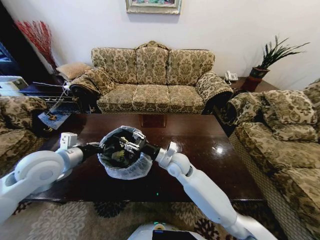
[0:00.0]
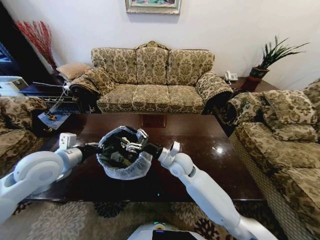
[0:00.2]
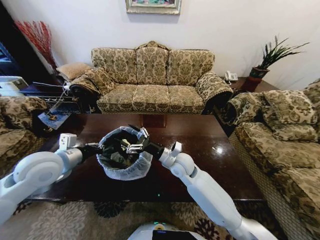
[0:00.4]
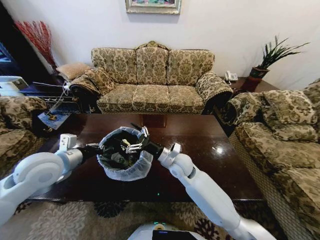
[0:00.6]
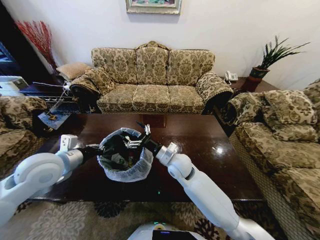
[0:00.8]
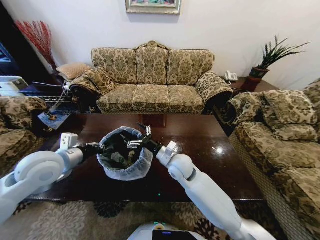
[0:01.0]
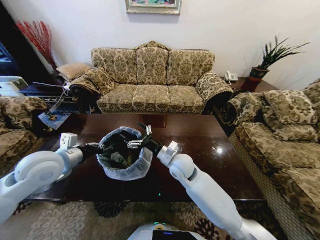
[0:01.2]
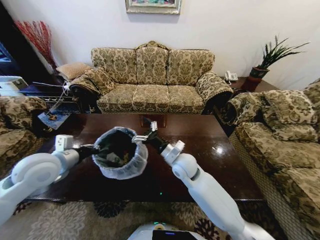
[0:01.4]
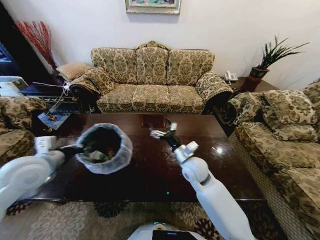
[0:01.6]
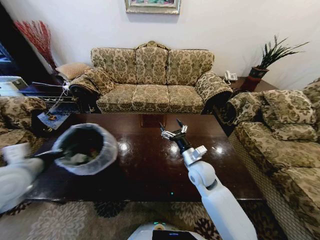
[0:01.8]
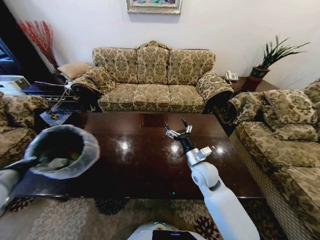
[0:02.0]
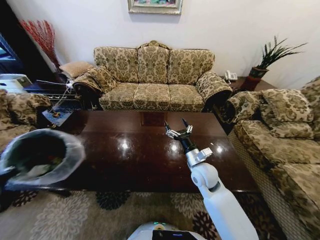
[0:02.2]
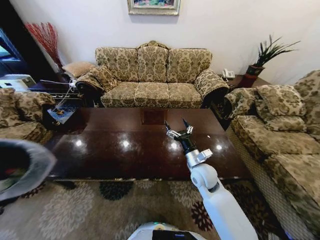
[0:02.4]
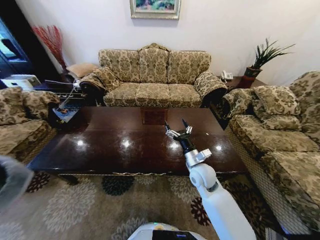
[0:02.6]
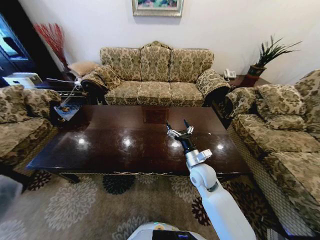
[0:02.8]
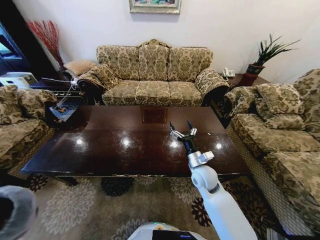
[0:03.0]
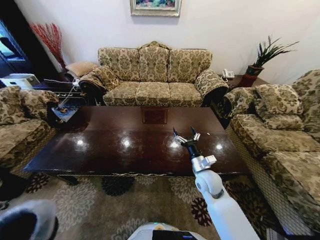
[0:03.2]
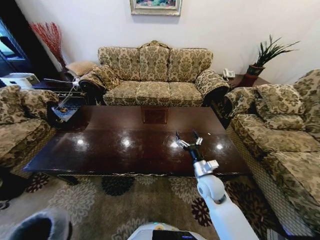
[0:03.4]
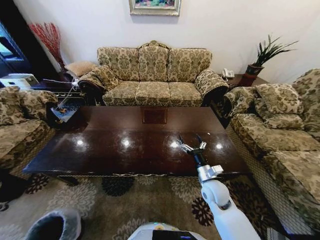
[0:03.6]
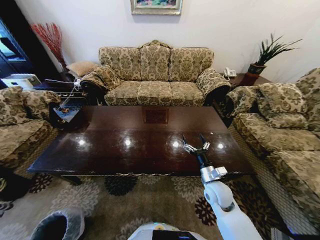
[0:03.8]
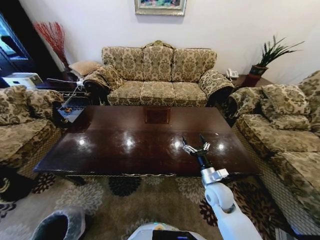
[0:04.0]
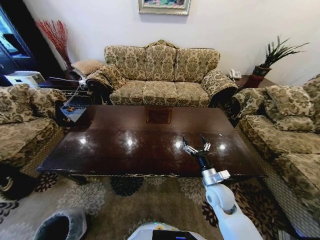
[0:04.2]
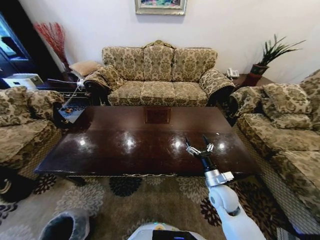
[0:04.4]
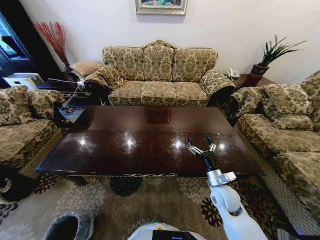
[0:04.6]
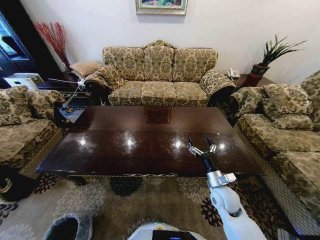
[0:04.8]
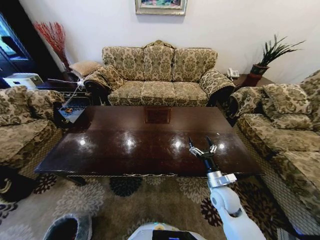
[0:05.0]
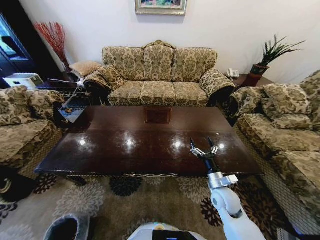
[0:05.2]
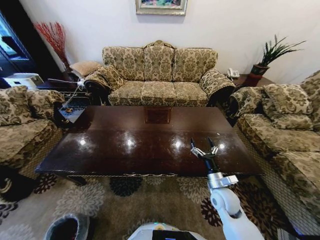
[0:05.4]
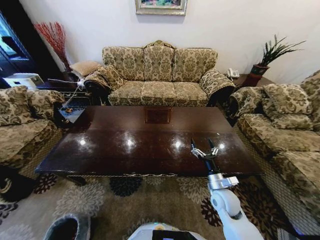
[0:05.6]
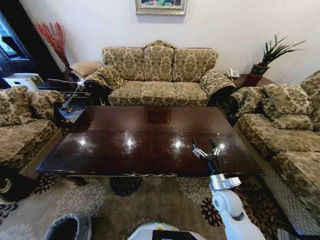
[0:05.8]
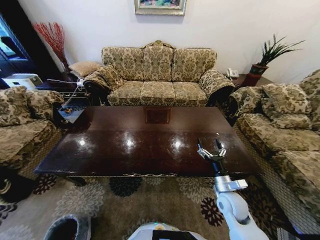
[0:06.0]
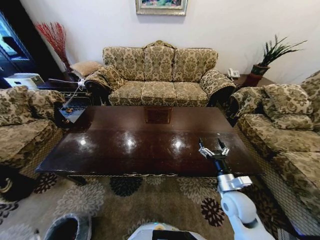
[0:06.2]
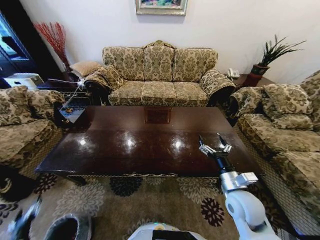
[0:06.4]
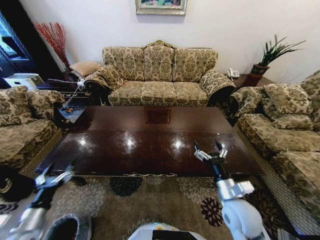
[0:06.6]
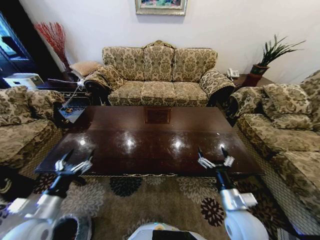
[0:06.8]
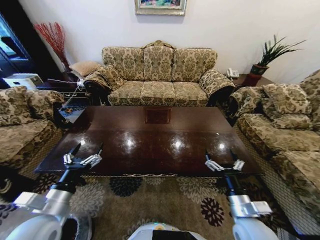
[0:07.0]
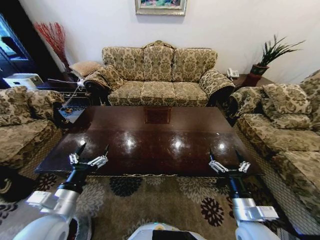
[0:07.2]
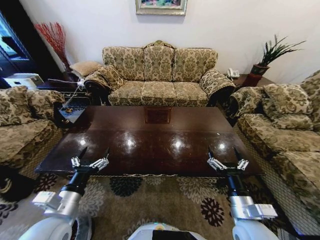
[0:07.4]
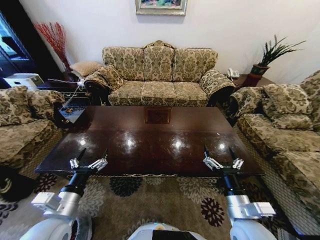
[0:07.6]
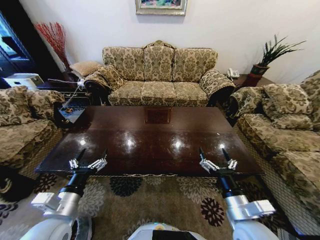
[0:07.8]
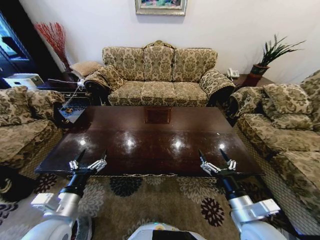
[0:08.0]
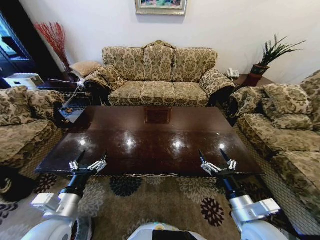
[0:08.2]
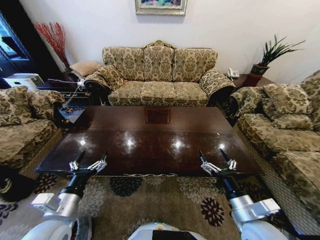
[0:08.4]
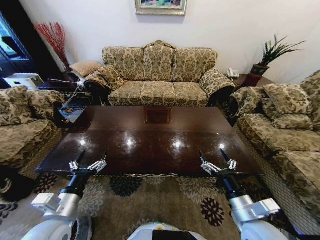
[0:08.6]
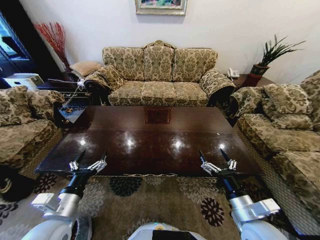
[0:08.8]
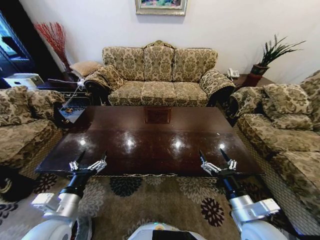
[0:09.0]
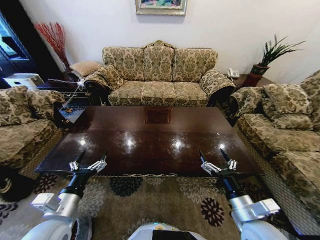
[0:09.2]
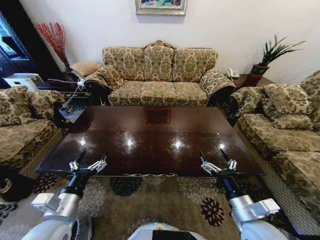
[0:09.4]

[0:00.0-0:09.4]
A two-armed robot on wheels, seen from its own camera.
Task of the whole recording: Move to the front of the table and place the trash on the table into the trash bin.
0:00.0 to 0:01.6: The right gripper travels to the right by approximately 5 cm, and opens up.
0:01.6 to 0:03.2: The left gripper moves downward, backward and to the left, some 40 cm. The right gripper goes some 10 cm to the right and downward.
0:03.2 to 0:04.8: The right gripper is displaced to the right by roughly 5 cm. The left gripper goes roughly 20 cm downward, and opens up.
0:04.8 to 0:06.2: The right gripper ends up approximately 5 cm from where it was; the left gripper heads upward and backward, covering roughly 10 cm, and opens.
0:06.2 to 0:07.8: The left gripper travels upward, to the right and forward by some 40 cm, while the right gripper goes approximately 10 cm backward and upward.
0:07.8 to 0:09.4: The grippers move only a little.
